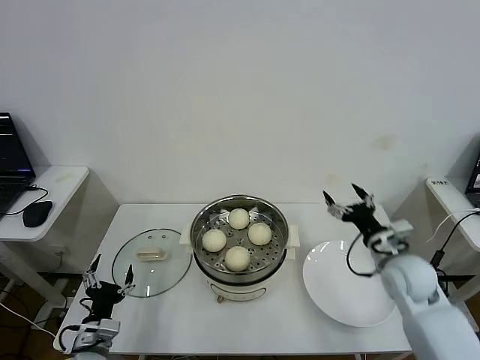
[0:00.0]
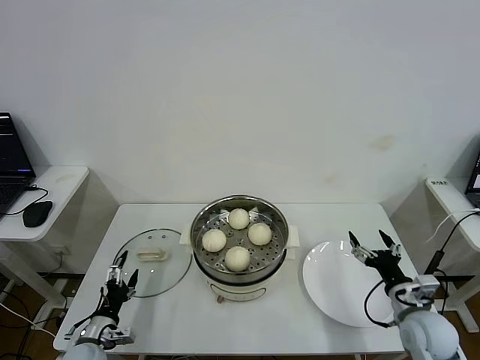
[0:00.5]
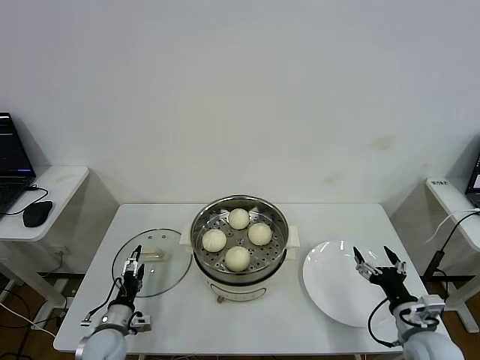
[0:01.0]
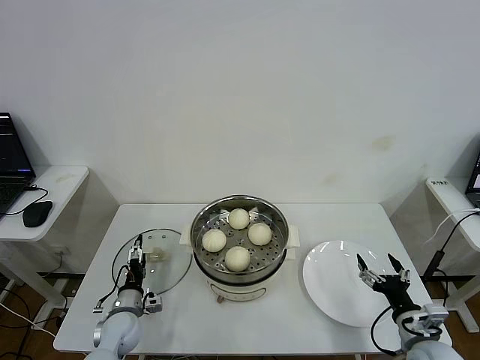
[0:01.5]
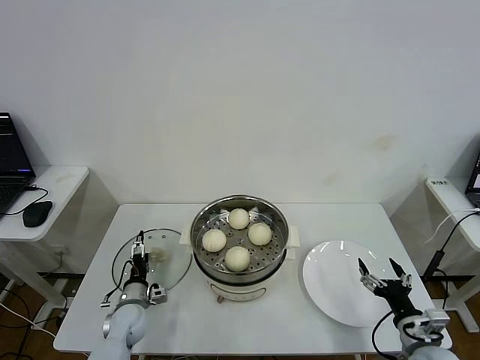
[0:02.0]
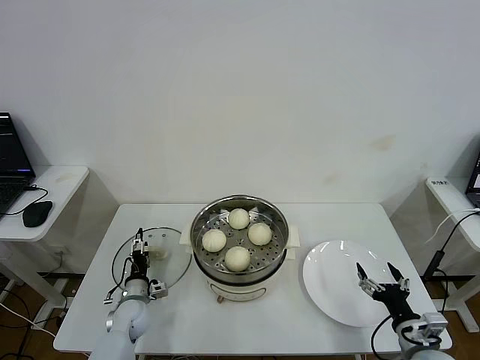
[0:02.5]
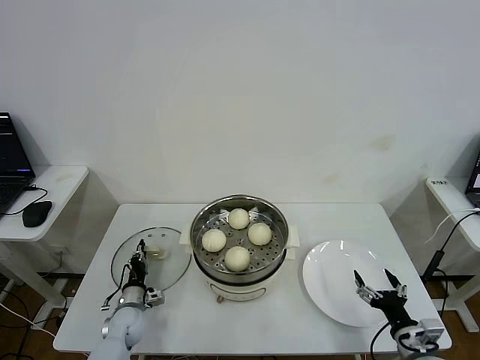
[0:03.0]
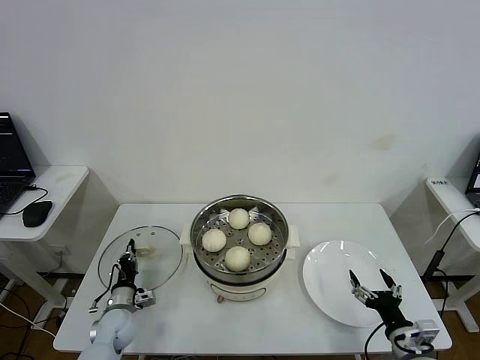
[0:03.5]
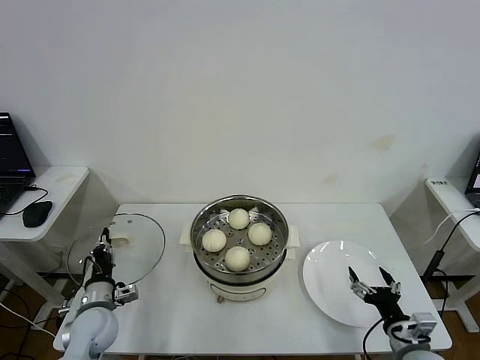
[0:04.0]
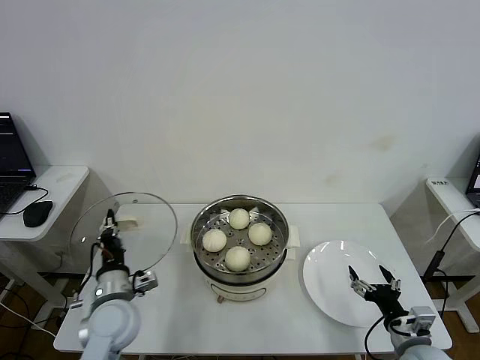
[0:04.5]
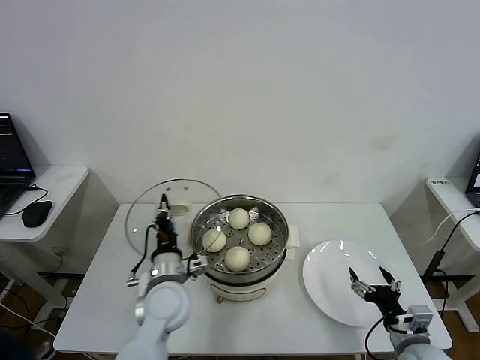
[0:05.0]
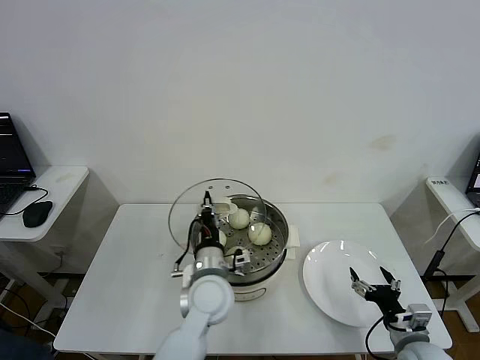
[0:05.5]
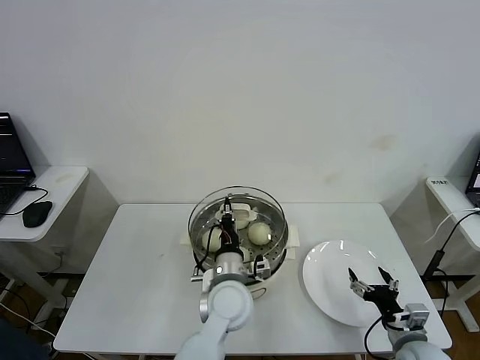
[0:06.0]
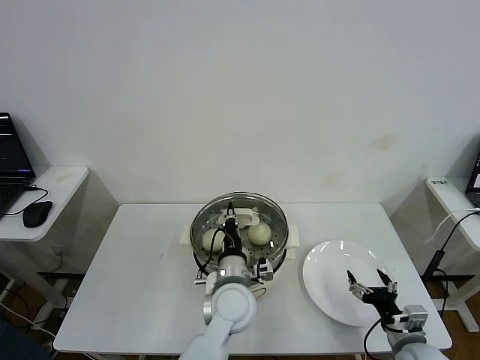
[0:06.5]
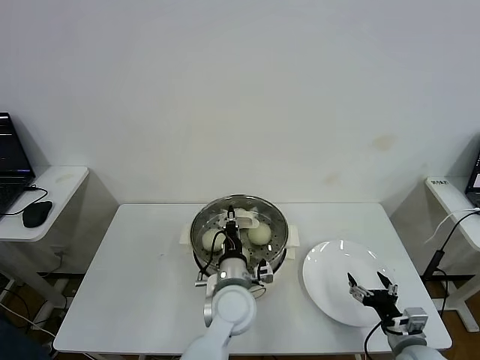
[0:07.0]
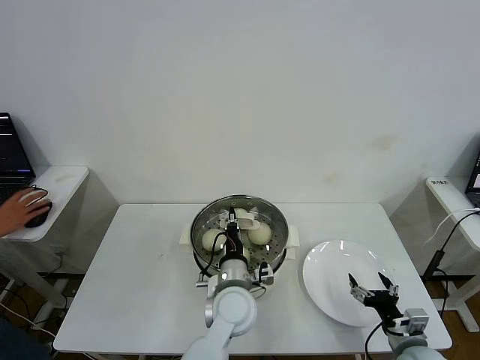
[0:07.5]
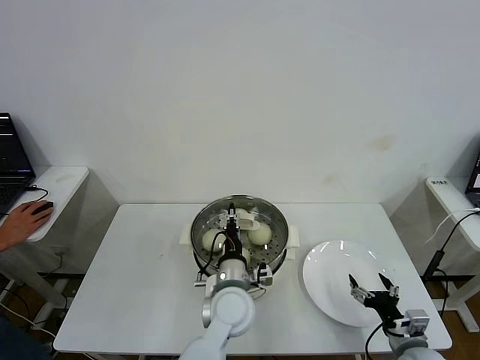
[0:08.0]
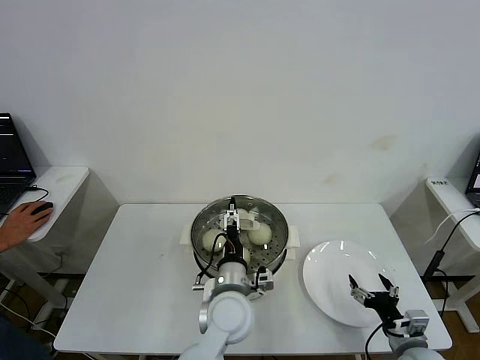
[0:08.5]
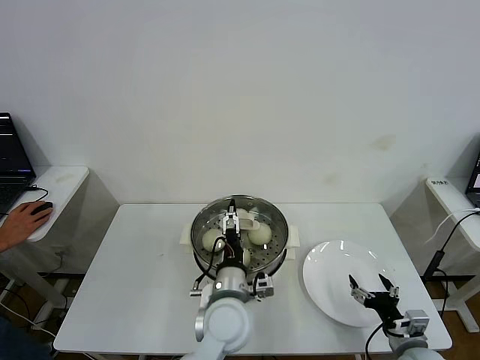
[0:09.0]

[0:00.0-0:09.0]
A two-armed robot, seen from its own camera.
Step, 0:00.0 to 0:03.0: Grasp the pot lid with left gripper.
Step, 0:03.5 to 0:08.0: Place the pot lid on the steamer with left gripper.
0:00.0 to 0:02.0: The right gripper goes some 20 cm backward and downward; the left gripper is displaced forward and downward by some 15 cm.
0:02.0 to 0:04.5: The left gripper goes some 15 cm upward, and closes.
0:04.5 to 0:07.0: The left gripper is displaced to the right by approximately 25 cm.
0:07.0 to 0:09.0: The left gripper opens its fingers.

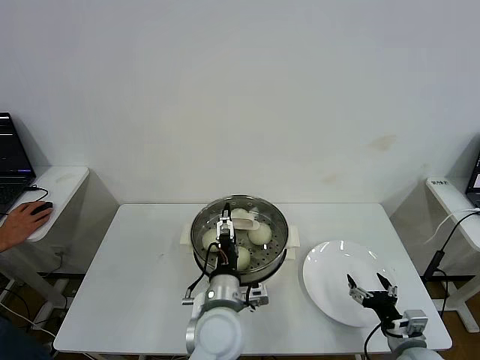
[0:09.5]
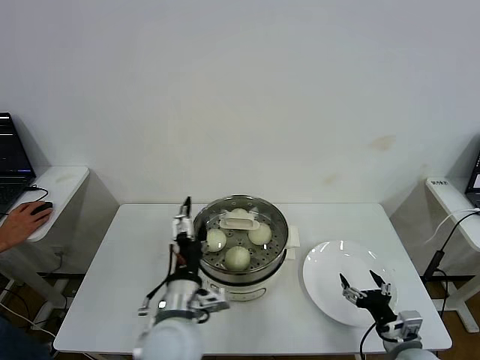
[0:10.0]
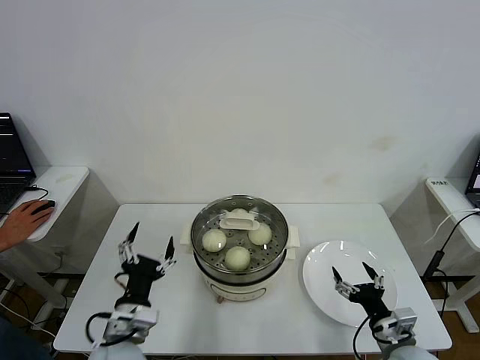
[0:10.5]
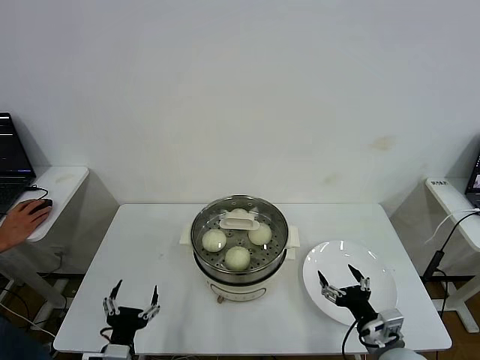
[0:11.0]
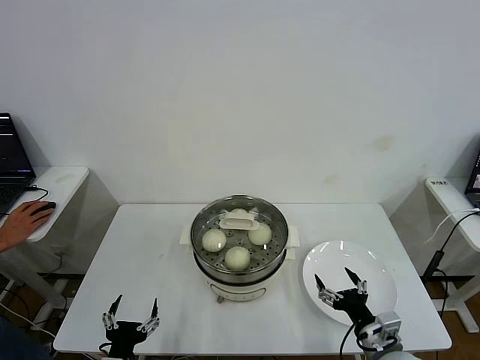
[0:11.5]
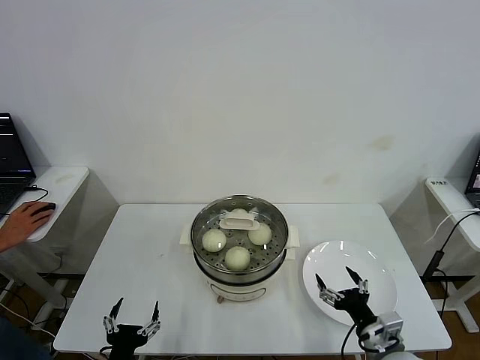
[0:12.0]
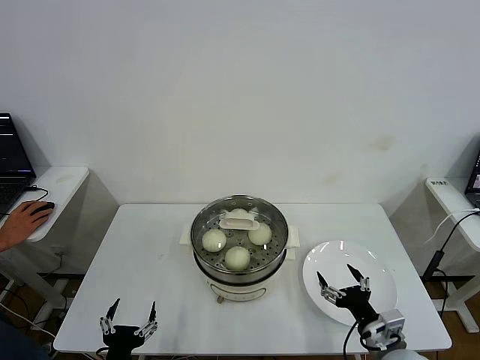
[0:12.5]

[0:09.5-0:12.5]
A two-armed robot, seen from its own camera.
0:09.5 to 0:11.0: The left gripper travels to the left and backward by approximately 25 cm. The right gripper travels to the left by about 5 cm.
0:11.0 to 0:12.5: The grippers stay close to where they were, moving slightly.
